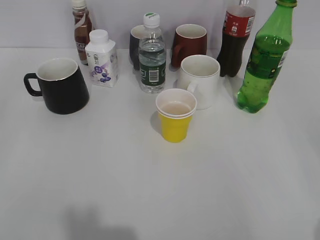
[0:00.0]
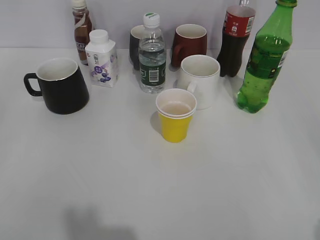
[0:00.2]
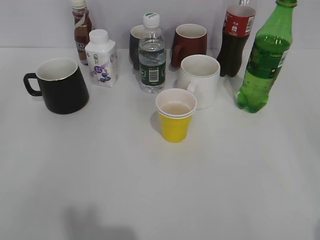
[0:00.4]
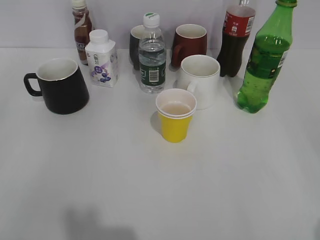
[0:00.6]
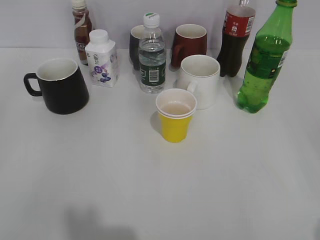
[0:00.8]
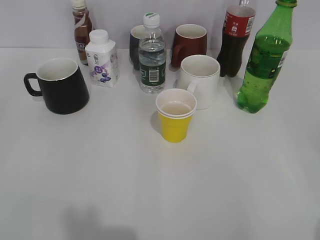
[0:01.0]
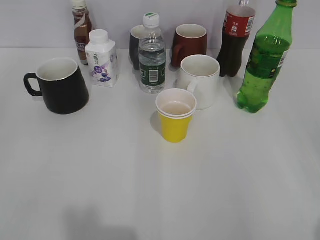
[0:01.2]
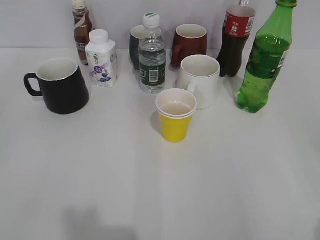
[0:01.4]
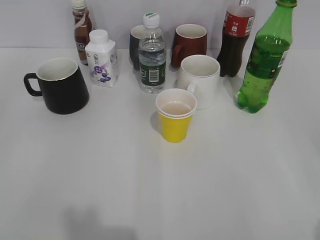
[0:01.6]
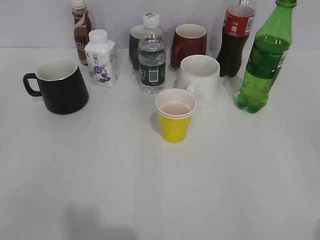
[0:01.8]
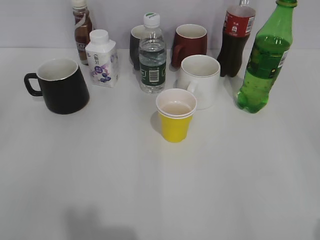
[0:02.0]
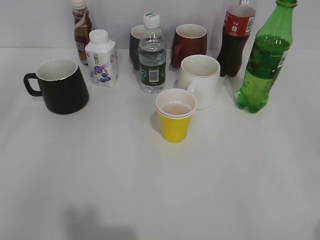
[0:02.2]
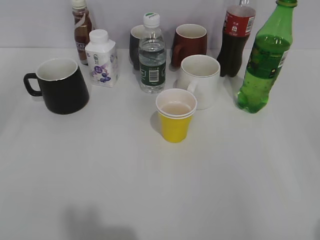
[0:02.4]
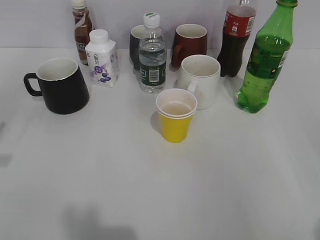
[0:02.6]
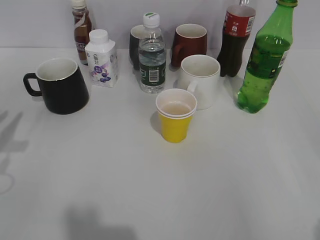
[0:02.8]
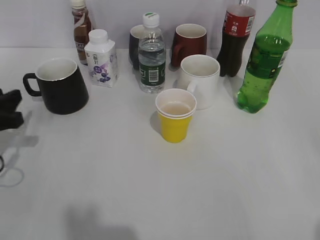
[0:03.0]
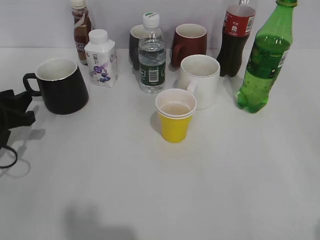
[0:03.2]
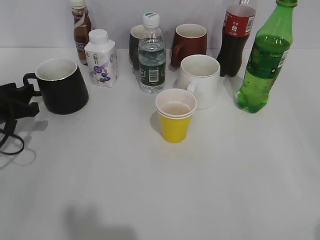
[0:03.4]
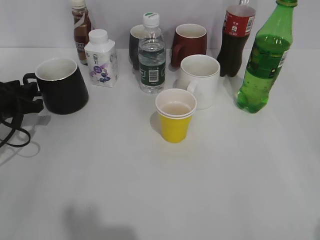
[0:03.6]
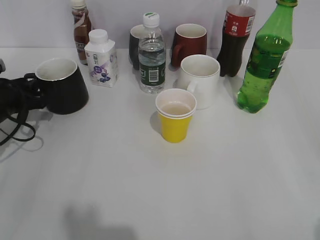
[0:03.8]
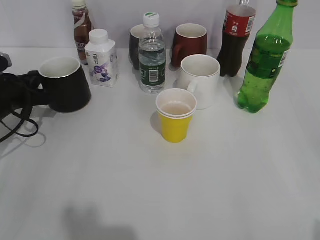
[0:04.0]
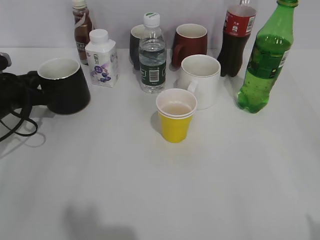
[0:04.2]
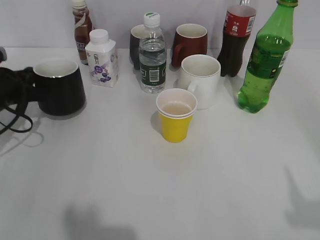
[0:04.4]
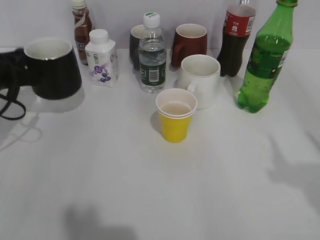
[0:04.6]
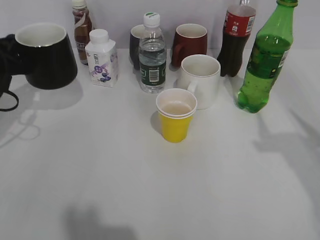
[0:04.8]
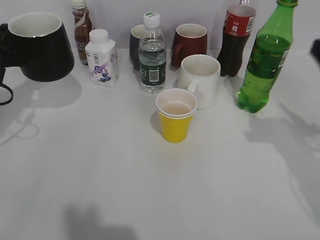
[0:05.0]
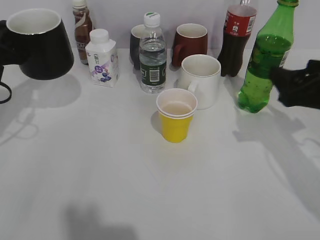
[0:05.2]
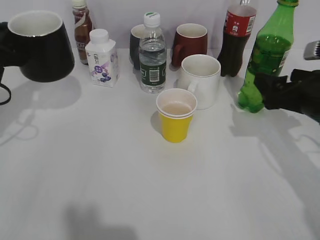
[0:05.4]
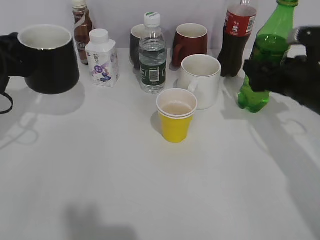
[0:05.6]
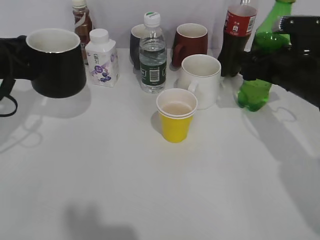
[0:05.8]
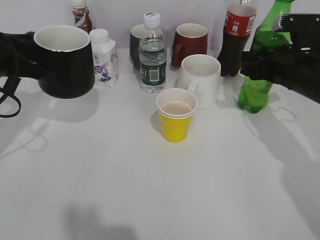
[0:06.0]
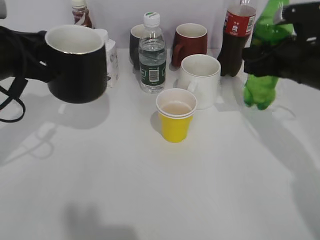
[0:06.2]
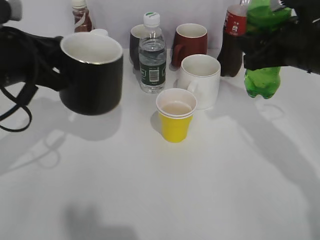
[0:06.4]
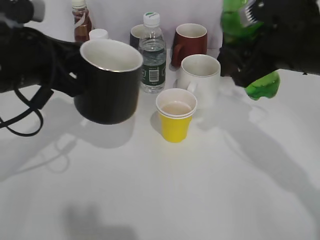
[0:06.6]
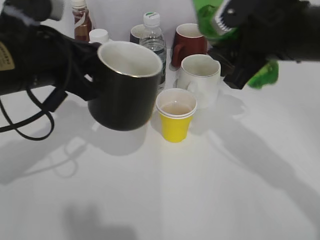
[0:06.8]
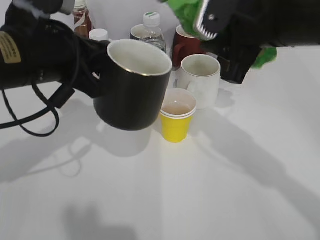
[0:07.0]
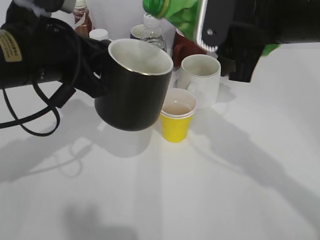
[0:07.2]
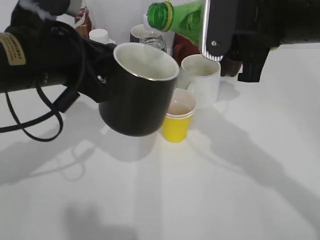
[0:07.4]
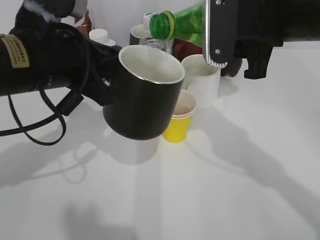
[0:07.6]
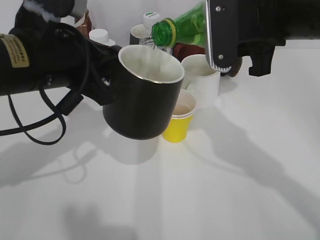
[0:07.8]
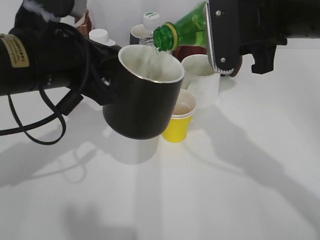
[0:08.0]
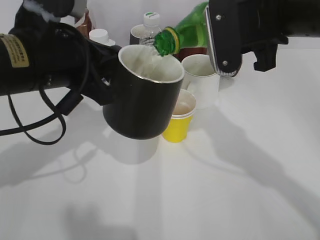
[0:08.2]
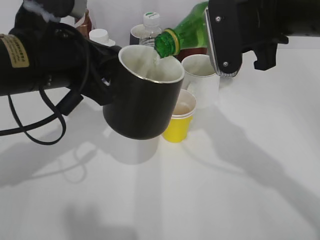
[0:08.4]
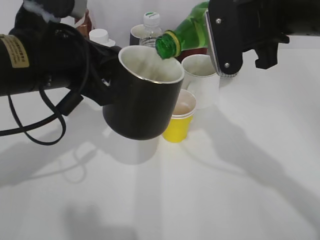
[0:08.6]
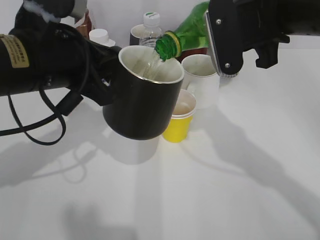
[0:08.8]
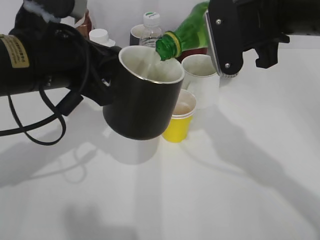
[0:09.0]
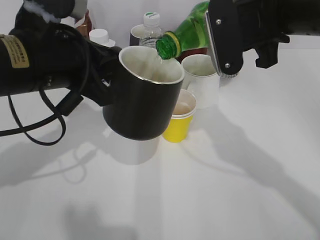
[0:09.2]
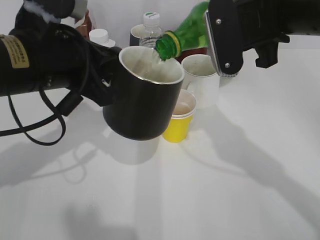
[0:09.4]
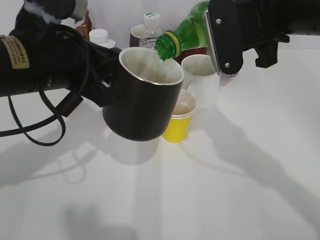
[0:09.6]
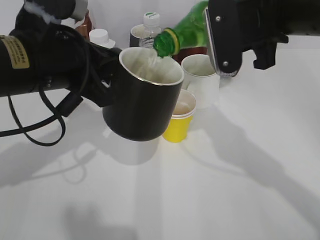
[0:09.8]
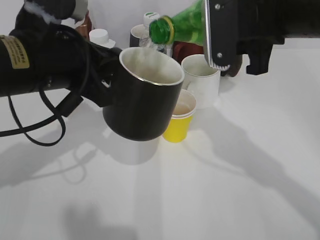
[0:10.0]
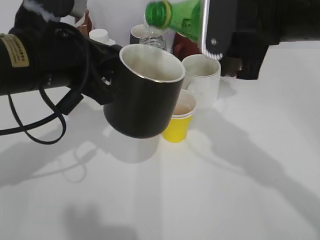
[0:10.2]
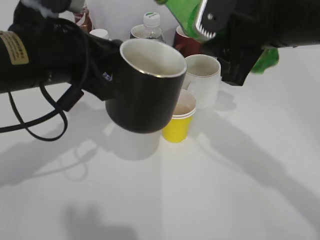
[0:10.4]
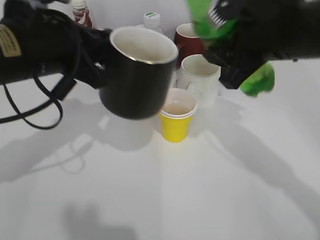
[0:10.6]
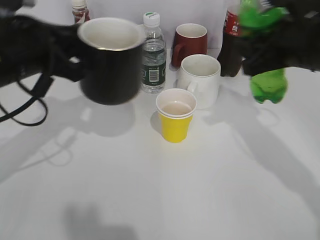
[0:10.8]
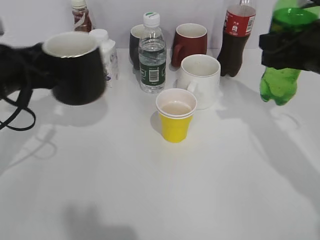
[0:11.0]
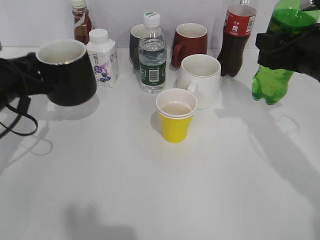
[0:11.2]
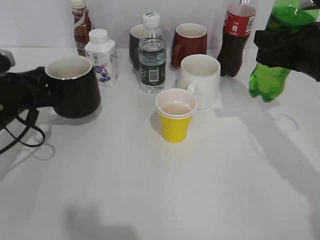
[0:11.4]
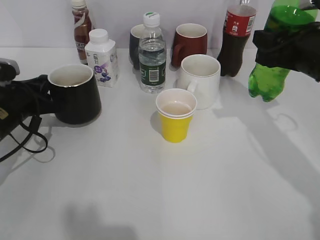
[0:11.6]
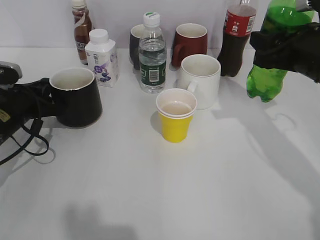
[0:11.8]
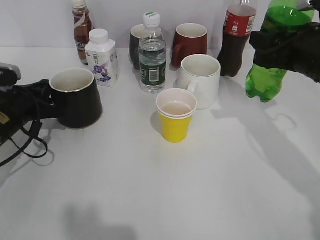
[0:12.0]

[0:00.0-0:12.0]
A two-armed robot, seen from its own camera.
Step, 0:01.8 to 0:04.0: Grasp the black cup with left gripper.
Step, 0:04.2 to 0:05.8: Grasp the bottle with sprite with right gripper.
Step, 0:06.0 to 0:10.2: Pour the sprite from bottle to cup with right gripper.
0:01.6 to 0:03.0: The left gripper moves forward and downward, approximately 25 cm.
0:03.0 to 0:04.4: The left gripper is displaced forward by roughly 10 cm, and closes its fingers.
0:04.4 to 0:06.0: The left gripper heads upward, covering roughly 10 cm, while the right gripper shifts about 35 cm forward and downward, and closes its fingers.
0:06.0 to 0:07.6: The left gripper heads to the right and backward, covering approximately 15 cm; the right gripper moves upward, to the left and backward, some 15 cm.
0:07.6 to 0:09.0: The grippers move only a little.
0:10.4 to 0:12.0: The left gripper heads downward, to the left and forward, covering about 20 cm, while the right gripper moves to the right and downward, about 10 cm.

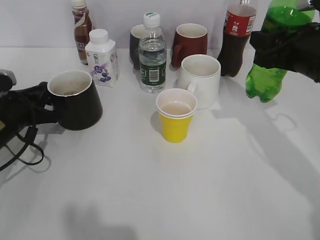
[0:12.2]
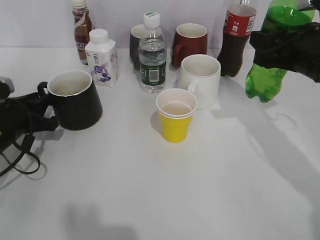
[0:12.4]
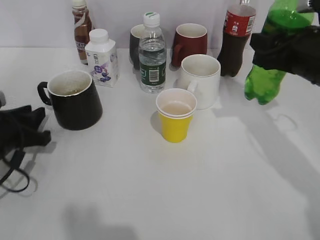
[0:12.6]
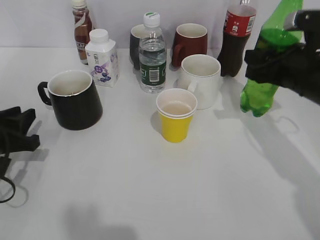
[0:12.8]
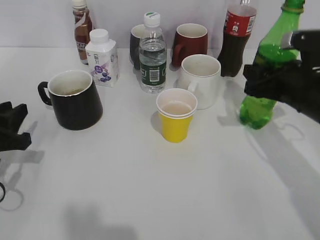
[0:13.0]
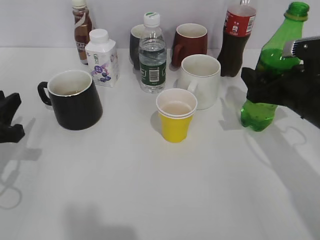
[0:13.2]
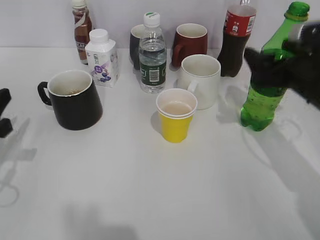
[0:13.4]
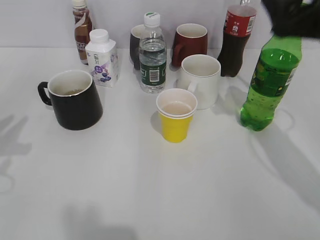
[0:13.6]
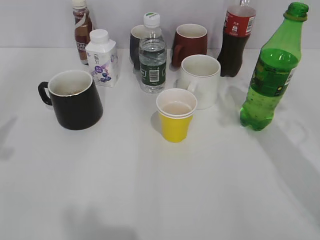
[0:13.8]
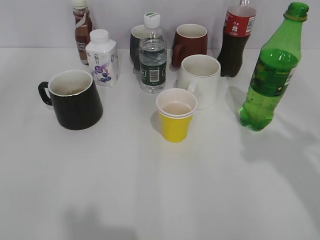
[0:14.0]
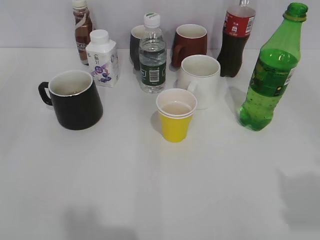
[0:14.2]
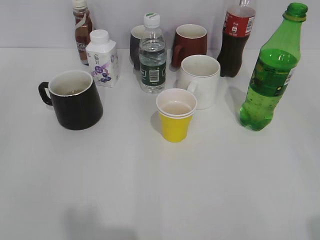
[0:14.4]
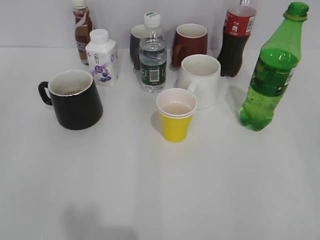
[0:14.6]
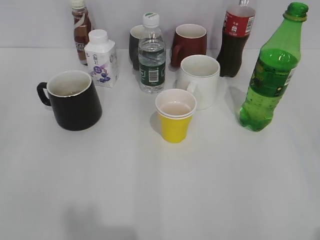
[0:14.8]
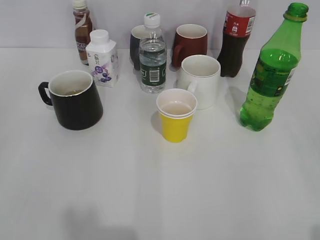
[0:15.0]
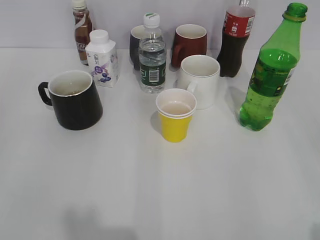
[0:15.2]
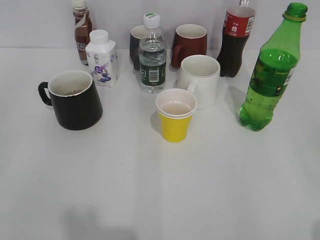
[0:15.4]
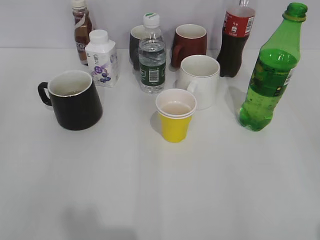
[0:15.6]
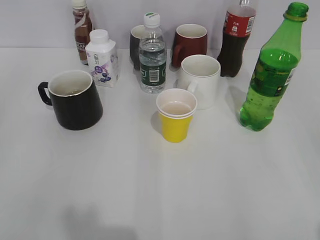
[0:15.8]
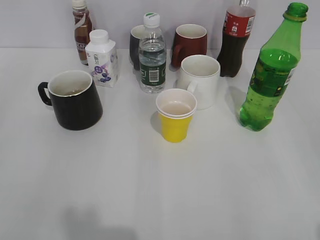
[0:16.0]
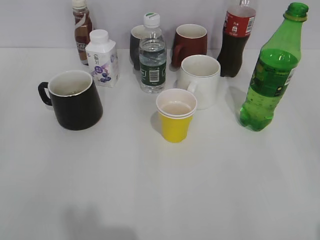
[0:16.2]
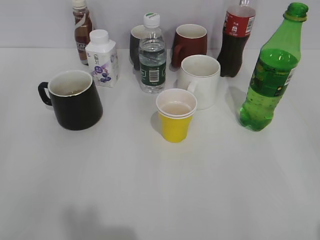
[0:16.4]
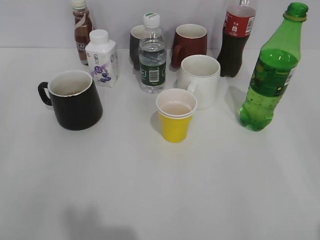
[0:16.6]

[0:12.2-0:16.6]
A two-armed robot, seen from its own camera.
Step, 0:12.6 to 0:13.4: Place the sprite bottle on the table with right gripper.
0:12.2 to 0:13.6: The right gripper travels downward and back again, roughly 5 cm each way, and opens its fingers. Meanwhile the left gripper goes some 15 cm backward and upward, and opens up.
0:13.6 to 0:15.2: The right gripper goes about 30 cm backward.

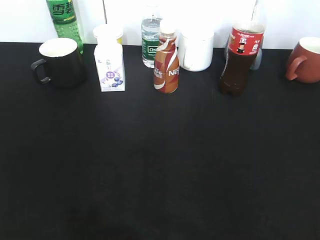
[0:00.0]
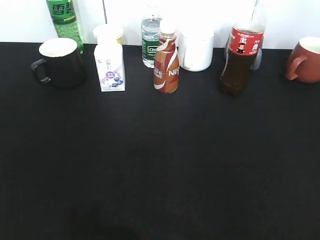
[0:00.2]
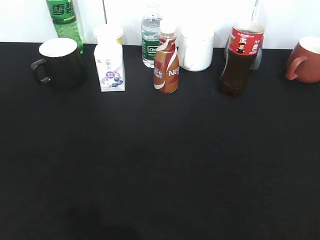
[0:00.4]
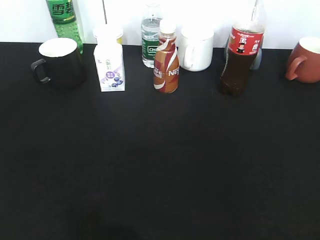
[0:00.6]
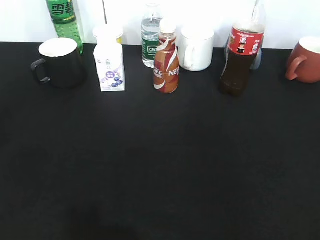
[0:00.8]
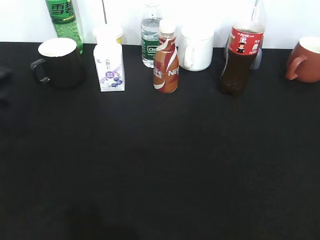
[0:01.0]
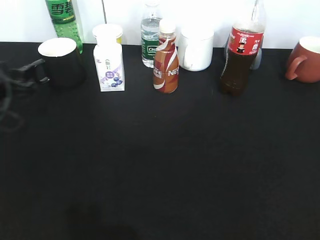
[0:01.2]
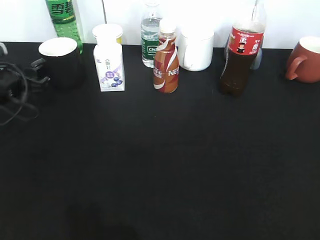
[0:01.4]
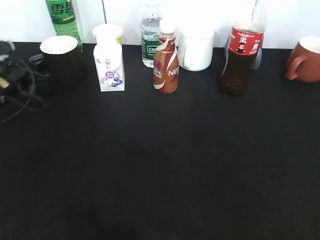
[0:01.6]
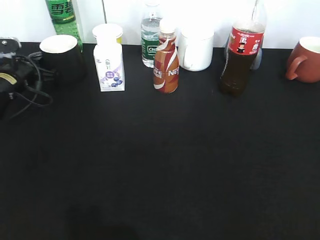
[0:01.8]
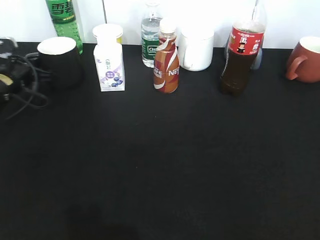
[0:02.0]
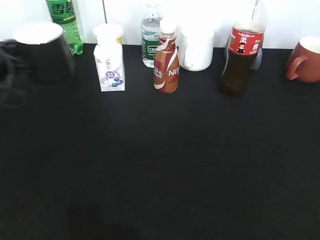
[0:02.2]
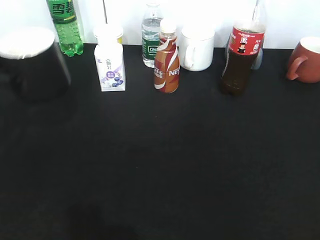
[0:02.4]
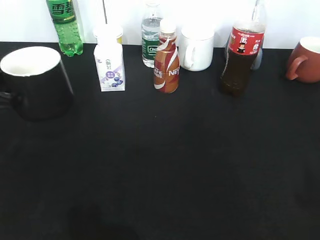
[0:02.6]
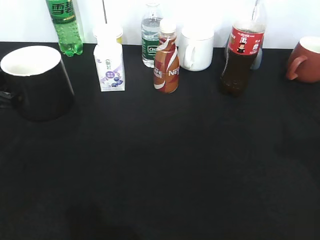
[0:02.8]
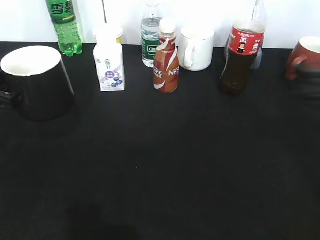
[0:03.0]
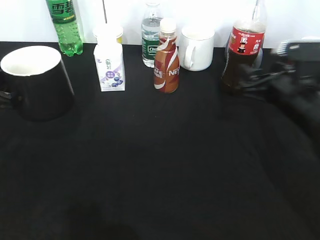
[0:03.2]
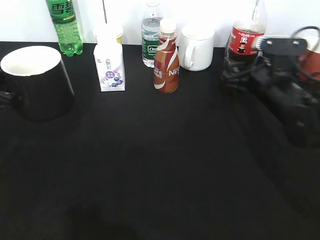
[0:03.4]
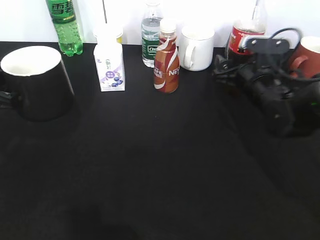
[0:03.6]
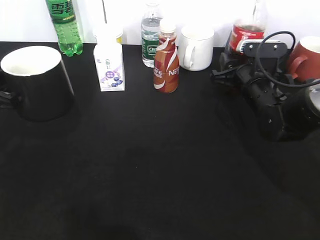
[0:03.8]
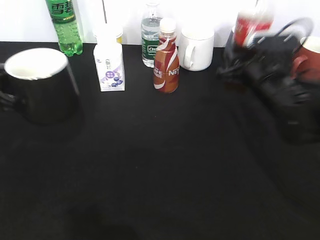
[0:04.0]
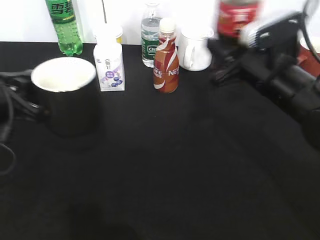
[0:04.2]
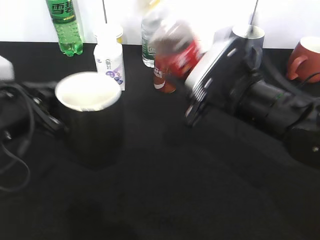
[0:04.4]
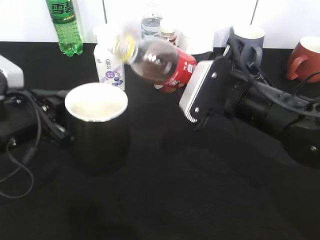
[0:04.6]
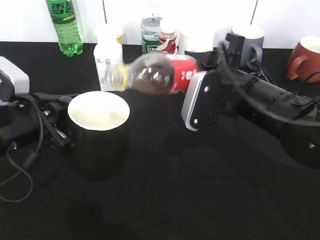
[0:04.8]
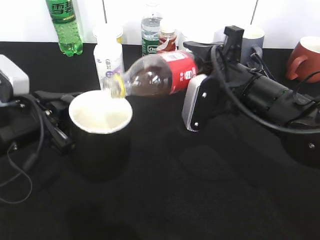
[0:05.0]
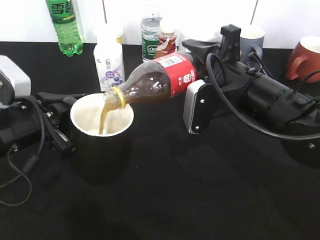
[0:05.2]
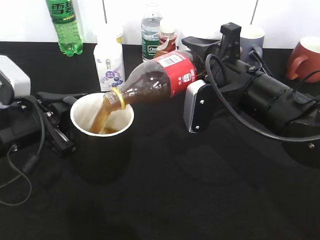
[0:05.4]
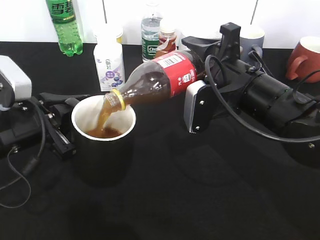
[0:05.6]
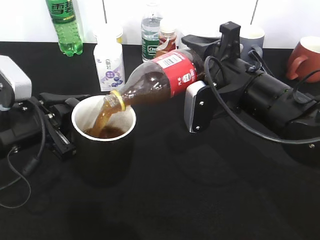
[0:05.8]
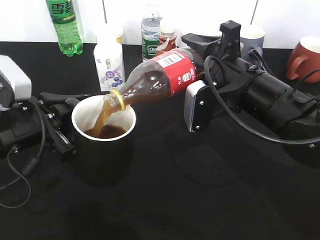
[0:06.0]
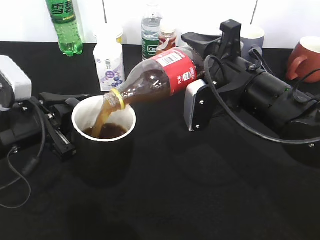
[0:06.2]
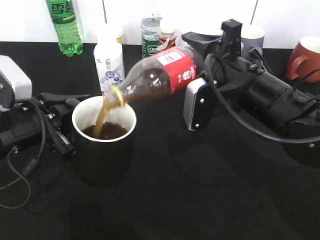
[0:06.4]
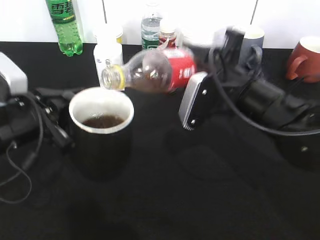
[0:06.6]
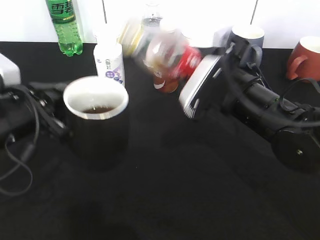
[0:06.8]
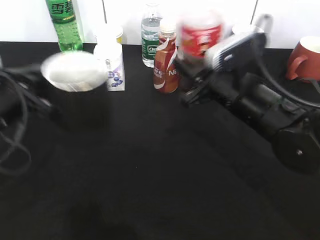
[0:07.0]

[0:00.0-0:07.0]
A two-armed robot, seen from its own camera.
Step, 0:00.0 to 0:01.8: Grasp the black cup with left gripper.
Step, 0:02.0 to 0:02.8: Lift the black cup with left gripper.
Step, 0:03.0 to 0:03.8: Grasp the bottle with cola with right gripper.
Step, 0:04.0 to 0:06.6: Pour the cola from bottle to cup with right gripper.
0:00.0 to 0:01.4: The left gripper goes approximately 40 cm forward and downward.
0:01.4 to 0:02.8: The left gripper heads backward and upward, covering some 15 cm, and closes.
0:02.8 to 0:04.2: The right gripper shifts approximately 20 cm to the left and forward, and closes.
